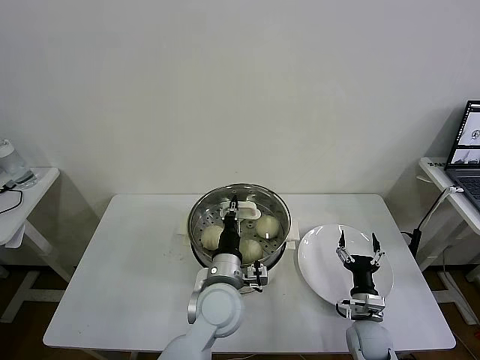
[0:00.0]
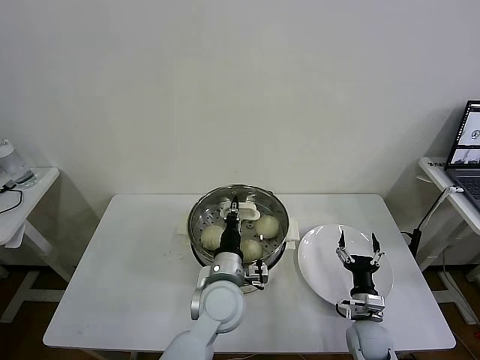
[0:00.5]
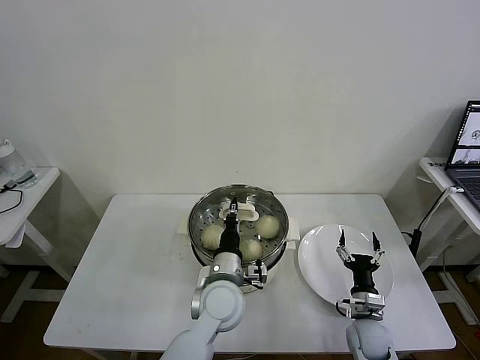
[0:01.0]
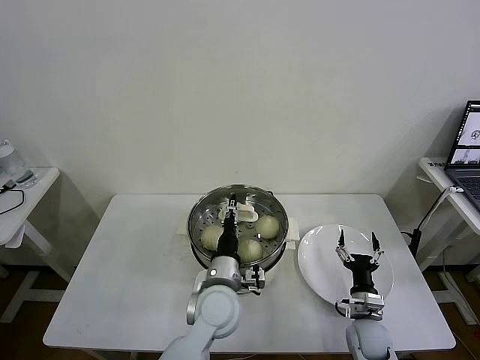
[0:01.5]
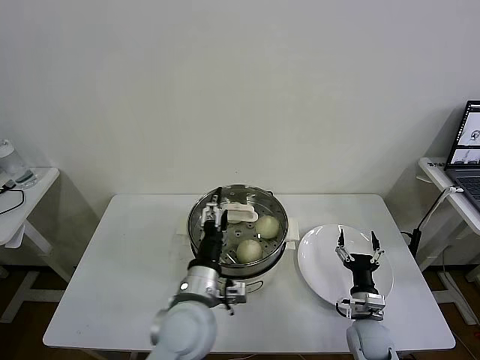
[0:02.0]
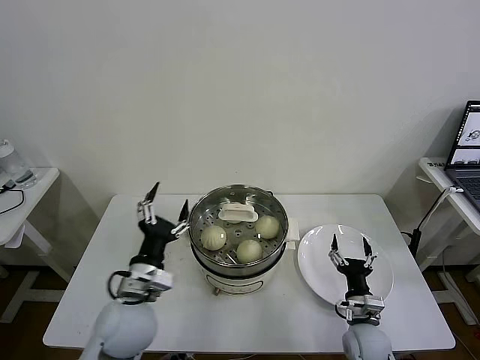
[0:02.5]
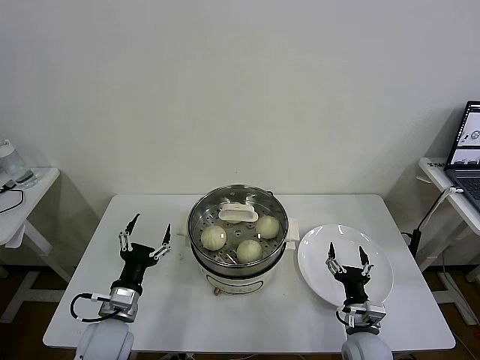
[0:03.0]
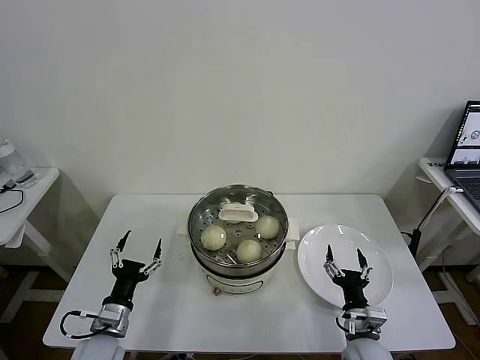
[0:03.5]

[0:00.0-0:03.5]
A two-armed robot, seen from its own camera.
Task of the whole recording: take steamed baozi put them in steamer then cover it.
0:00.0 to 0:02.0: The left gripper shifts by approximately 5 cm, and opens.
0:02.0 to 0:03.5: The right gripper moves some 5 cm; the left gripper goes roughly 25 cm to the left and downward.
